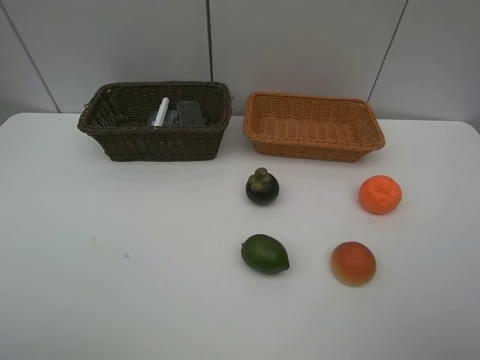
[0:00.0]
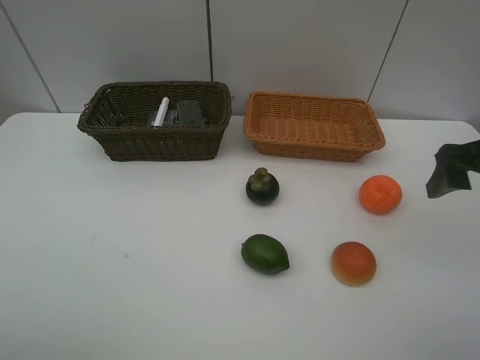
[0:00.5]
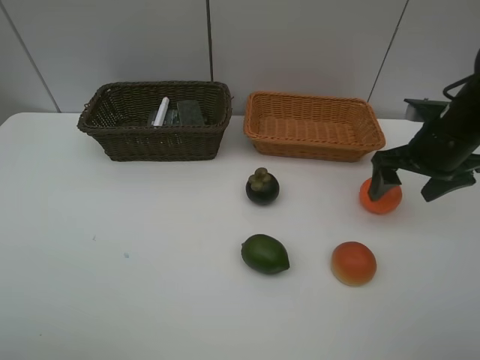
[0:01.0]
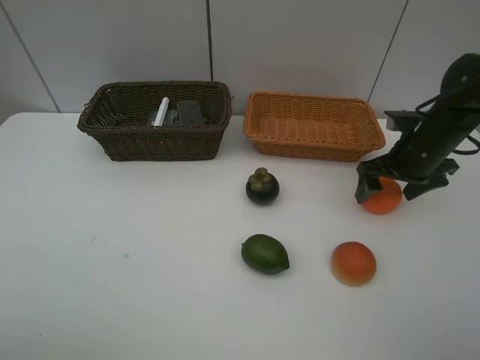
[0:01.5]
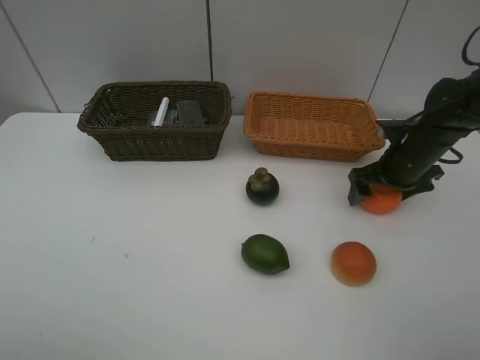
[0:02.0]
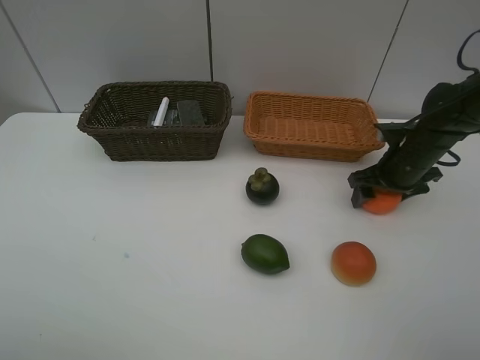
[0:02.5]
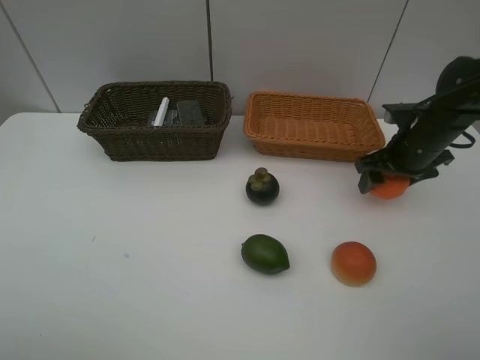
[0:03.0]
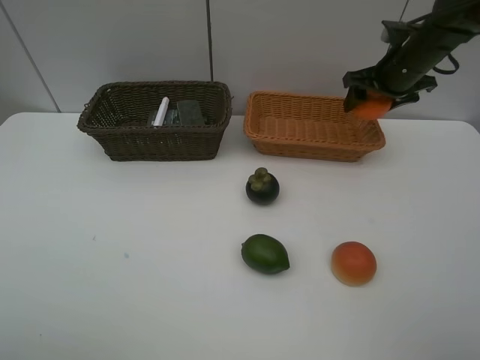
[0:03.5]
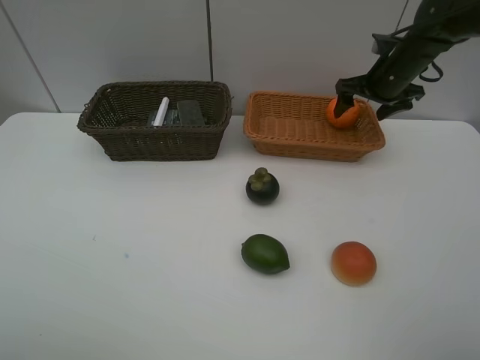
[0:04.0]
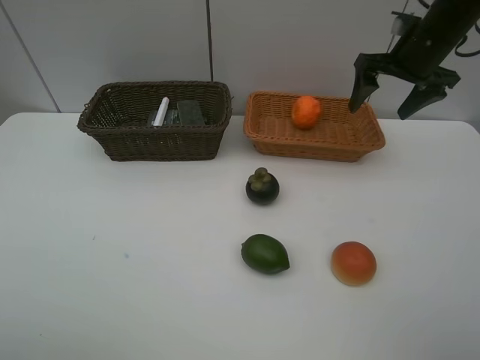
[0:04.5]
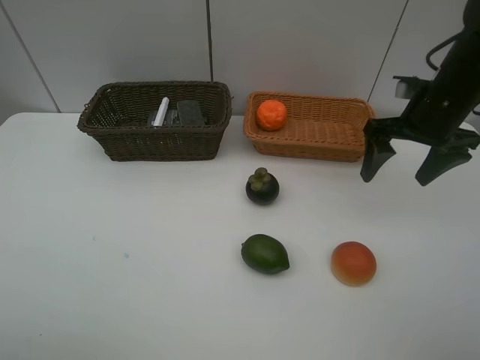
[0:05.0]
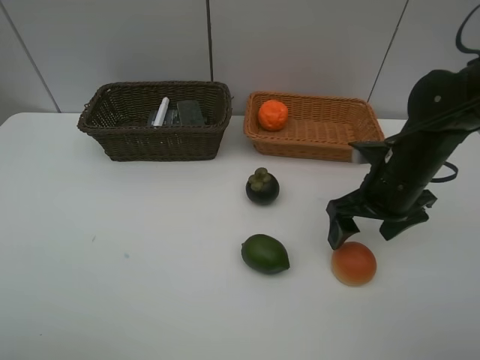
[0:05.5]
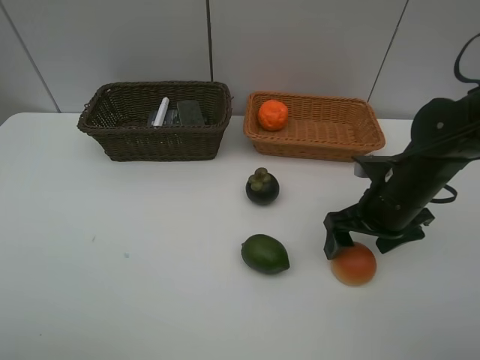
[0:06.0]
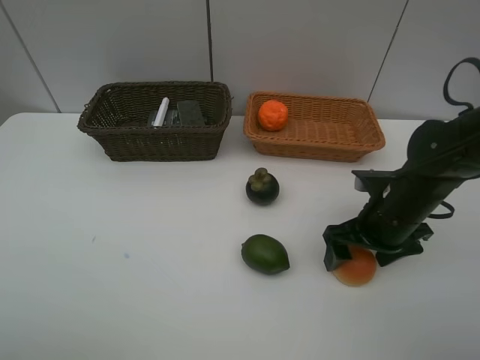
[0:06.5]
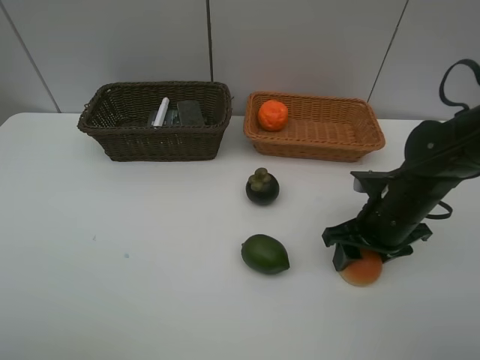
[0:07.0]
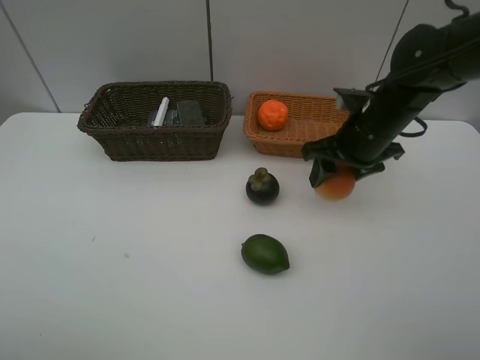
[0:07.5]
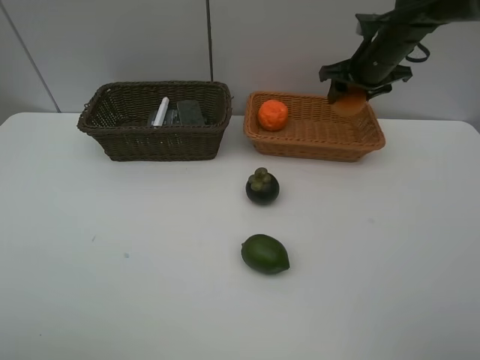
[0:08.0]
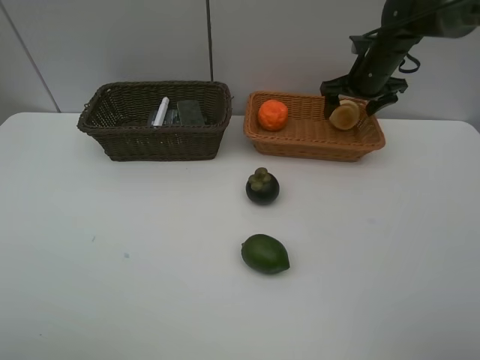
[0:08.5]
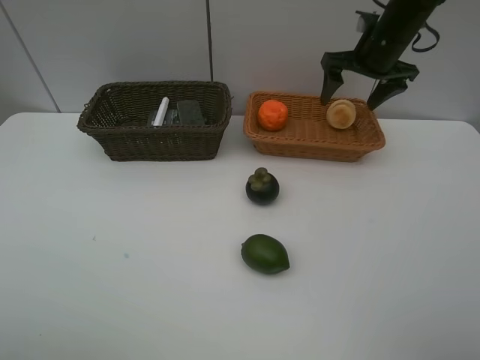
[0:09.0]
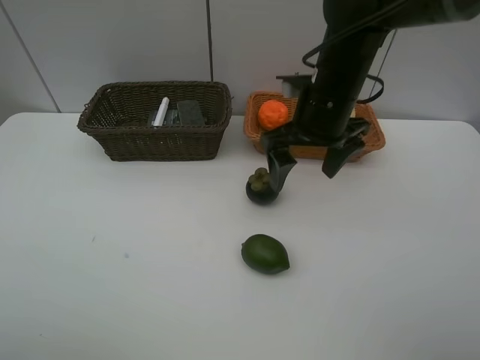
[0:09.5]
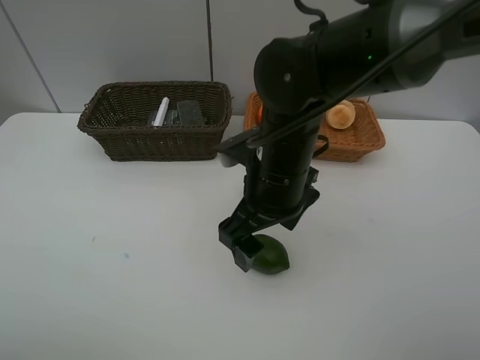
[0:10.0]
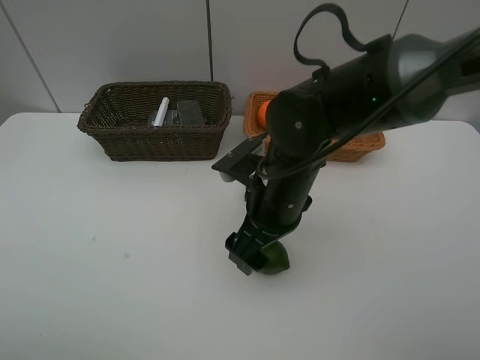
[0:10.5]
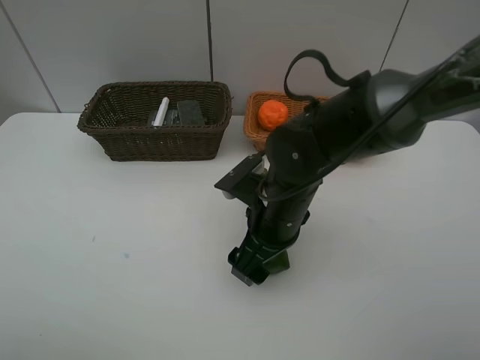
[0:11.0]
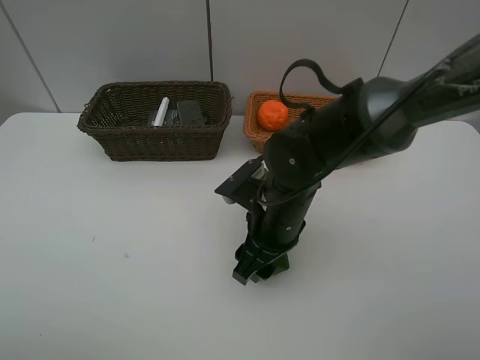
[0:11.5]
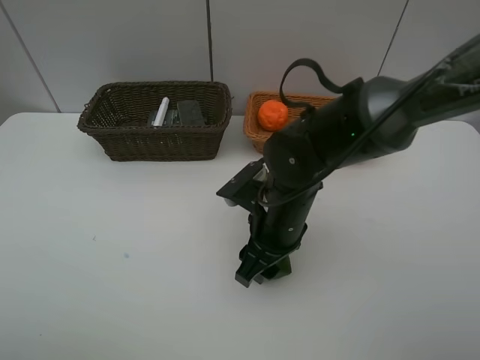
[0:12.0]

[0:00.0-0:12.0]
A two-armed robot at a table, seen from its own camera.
Task of the whole recording: Place multiple objects separately in different baskets.
Step, 0:00.0 to 0:03.0: Pick up the orange with right gripper.
Step, 0:03.5 to 0:04.0: Place the orange in the light basket with right gripper.
Step, 0:04.5 to 0:07.0: Pick up egg yolk pastry with right gripper.
Step, 0:07.5 to 0:08.5: Place the egg yolk pastry in the light basket with right gripper.
0:00.0 to 0:02.0: The right gripper travels forward and downward by some 35 cm.
0:02.0 to 0:04.0: The right gripper goes some 15 cm forward and upward, and closes, then reopens.
0:04.0 to 0:06.0: The right gripper heads backward, covering about 20 cm.
0:06.0 to 0:08.0: The right gripper moves forward, approximately 25 cm, and closes up.
0:08.0 to 0:10.0: The right gripper moves backward and to the left, some 30 cm, and opens its fingers.
0:10.0 to 0:12.0: The right gripper shifts approximately 5 cm downward, and closes its fingers.

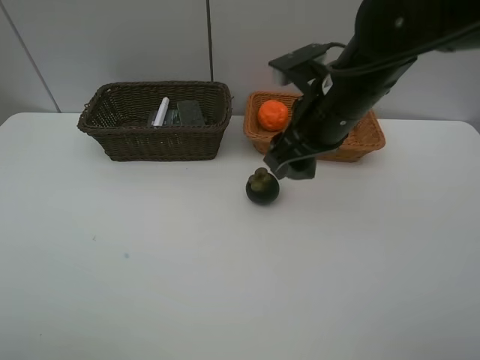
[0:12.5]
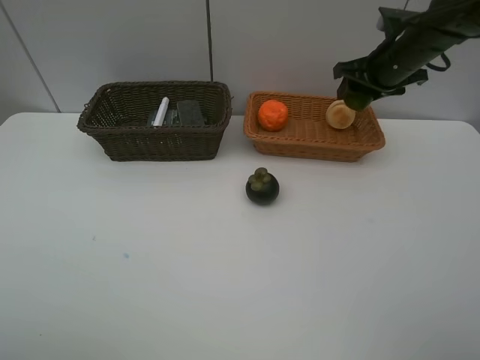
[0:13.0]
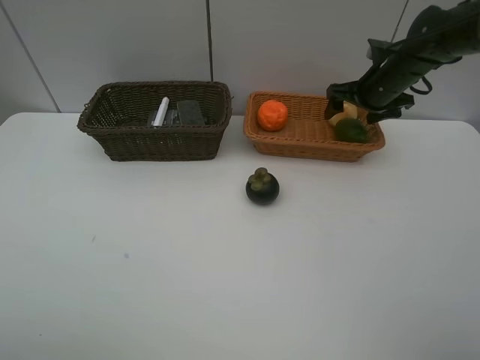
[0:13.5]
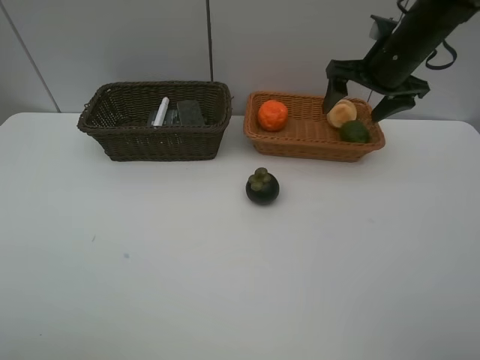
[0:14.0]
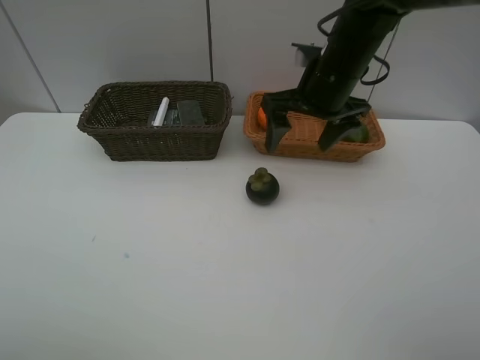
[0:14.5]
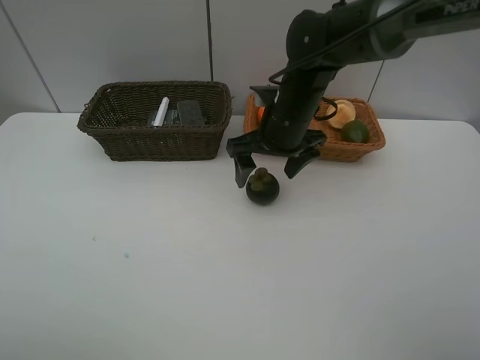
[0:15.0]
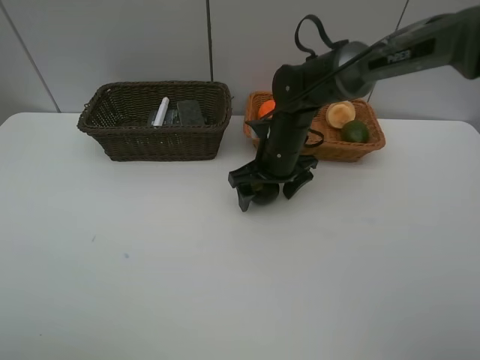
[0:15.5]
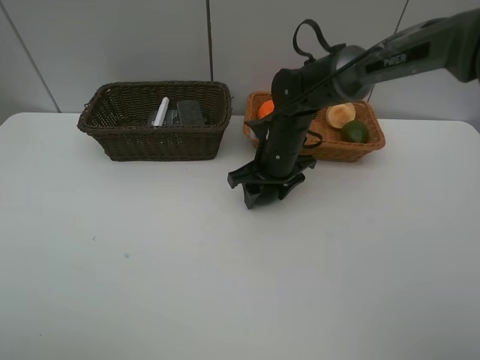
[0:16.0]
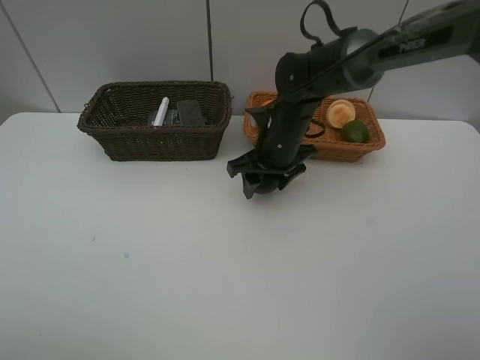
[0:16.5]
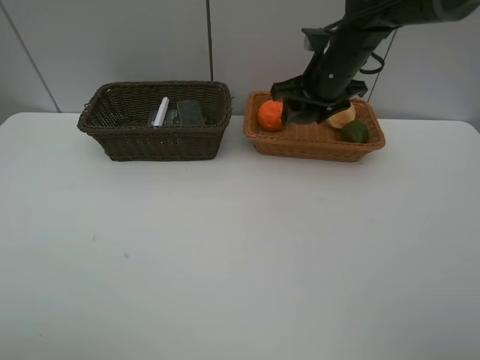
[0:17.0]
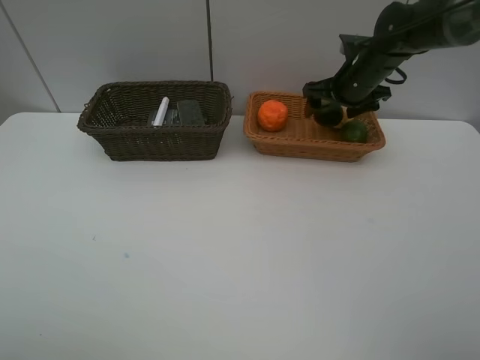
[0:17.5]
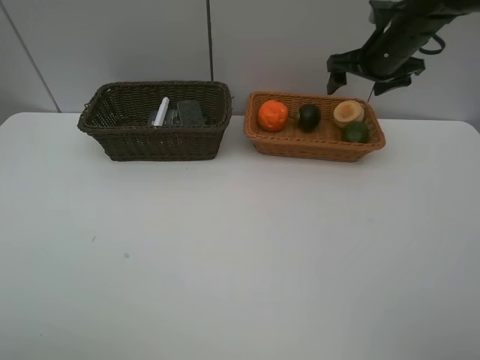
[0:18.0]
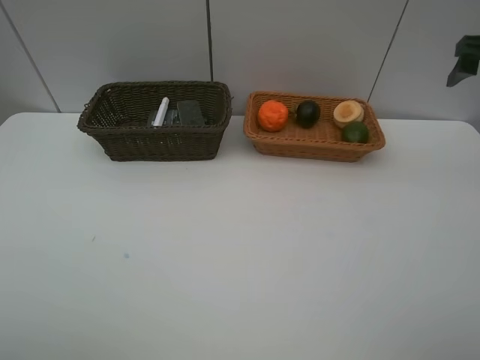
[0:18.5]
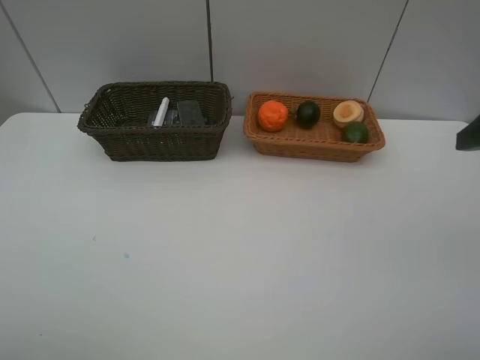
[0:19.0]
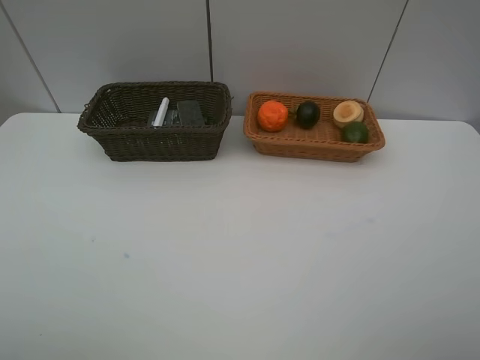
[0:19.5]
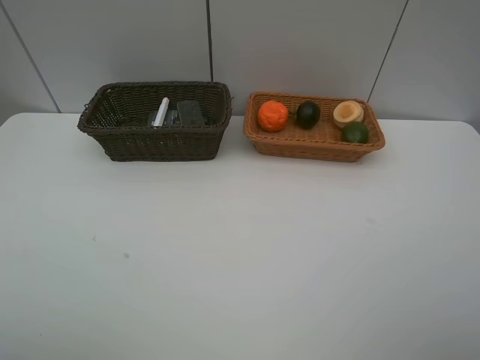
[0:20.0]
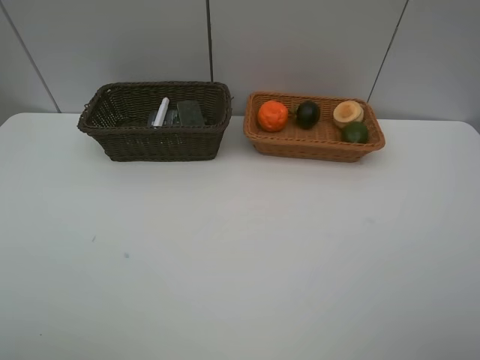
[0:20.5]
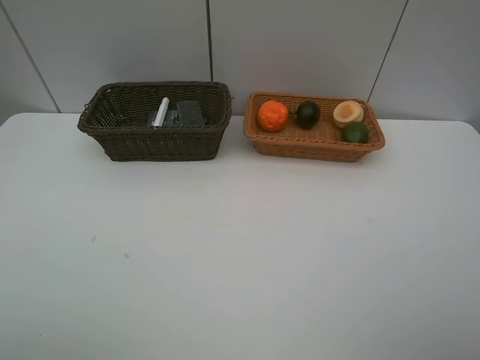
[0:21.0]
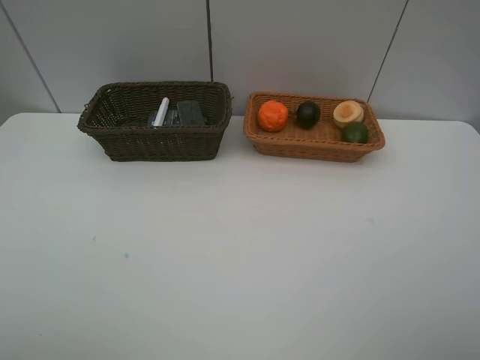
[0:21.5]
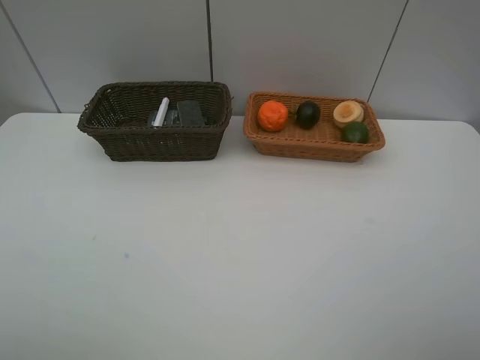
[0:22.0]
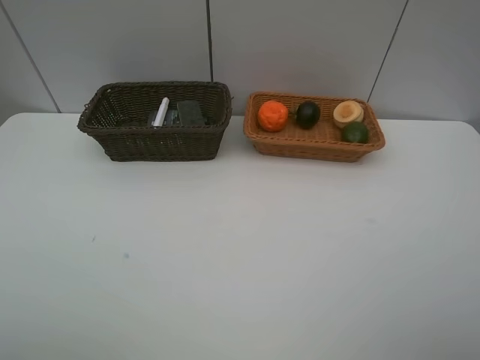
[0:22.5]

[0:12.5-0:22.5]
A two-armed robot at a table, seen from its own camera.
Task of the whole recording: Place multiple objects separately in different baskets.
Step, 0:12.5 to 0:13.5: Place the lime in the light basket with right gripper.
Step, 0:14.0 to 0:16.5: Pick up the mangosteen with right gripper.
Step, 0:17.0 to 0:17.5: Place the mangosteen in the light basket with right gripper.
0:12.5 to 0:14.5: The right gripper heads forward, covering about 5 cm, and opens up.
0:14.5 to 0:16.5: The right gripper moves downward, about 10 cm, and closes up.
0:16.5 to 0:18.5: The right gripper is displaced to the right and upward by roughly 35 cm, and opens up.
0:18.5 to 0:20.5: The right gripper heads backward, covering approximately 35 cm.
